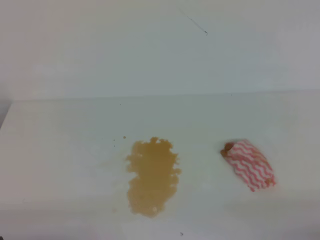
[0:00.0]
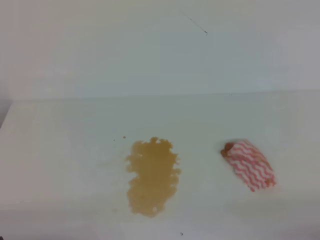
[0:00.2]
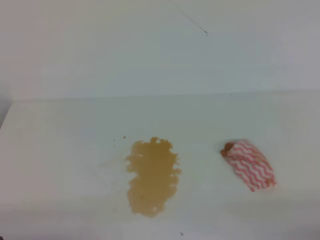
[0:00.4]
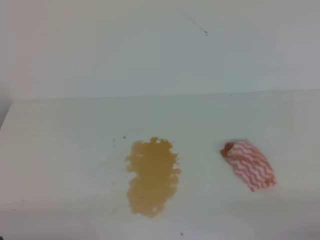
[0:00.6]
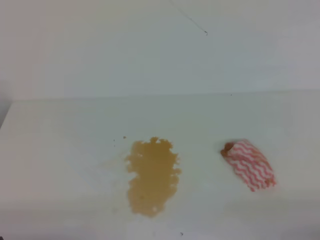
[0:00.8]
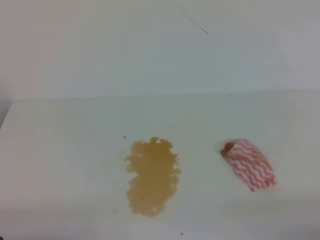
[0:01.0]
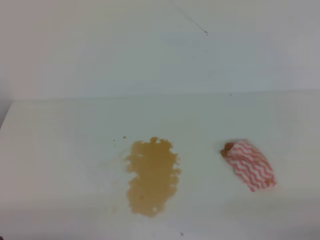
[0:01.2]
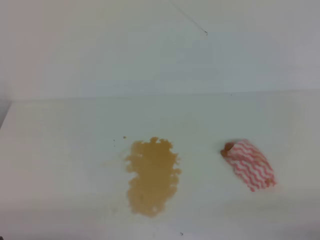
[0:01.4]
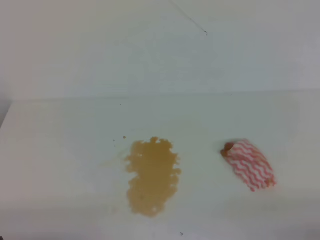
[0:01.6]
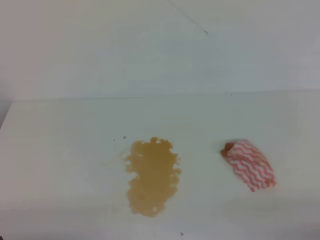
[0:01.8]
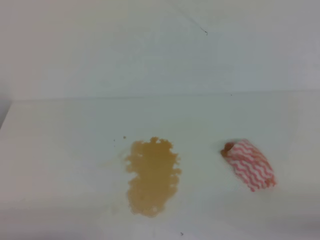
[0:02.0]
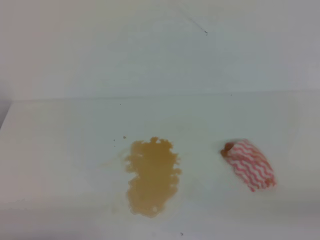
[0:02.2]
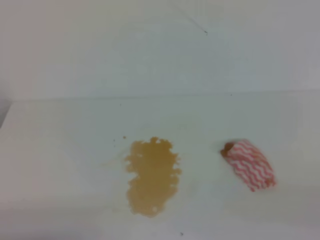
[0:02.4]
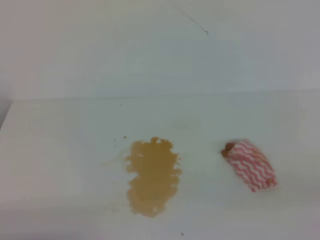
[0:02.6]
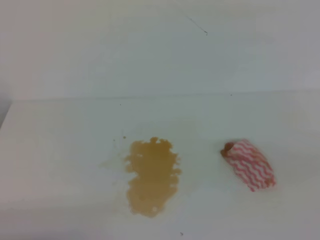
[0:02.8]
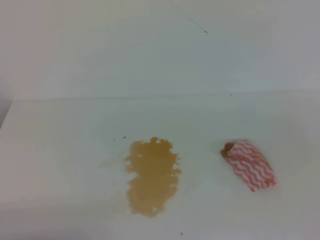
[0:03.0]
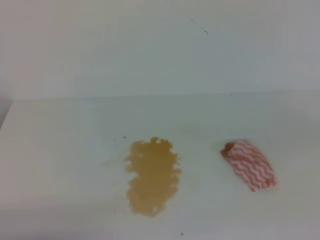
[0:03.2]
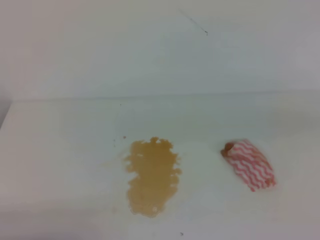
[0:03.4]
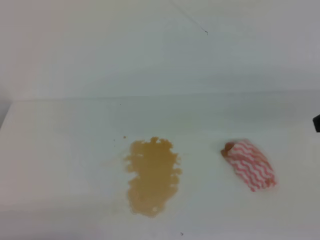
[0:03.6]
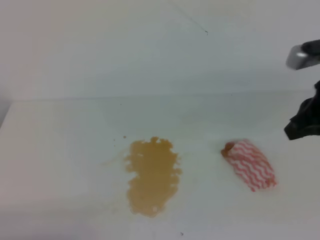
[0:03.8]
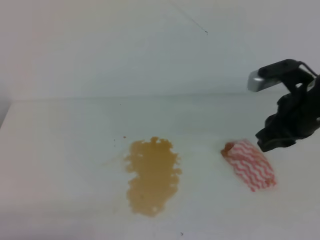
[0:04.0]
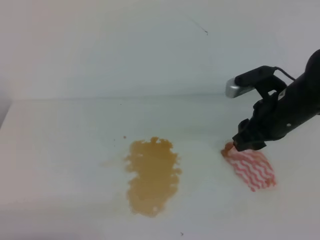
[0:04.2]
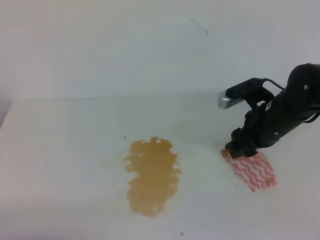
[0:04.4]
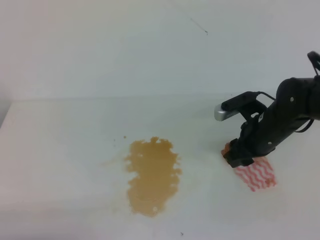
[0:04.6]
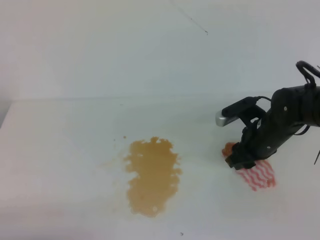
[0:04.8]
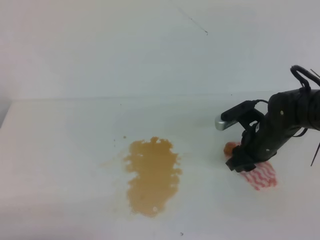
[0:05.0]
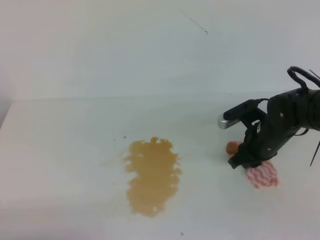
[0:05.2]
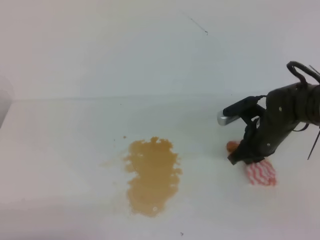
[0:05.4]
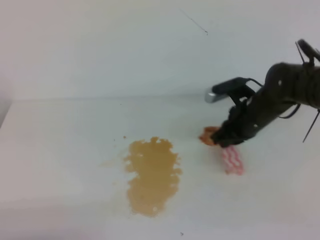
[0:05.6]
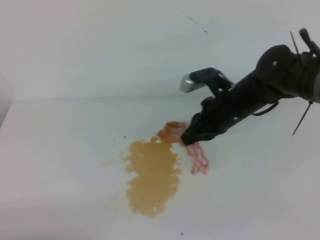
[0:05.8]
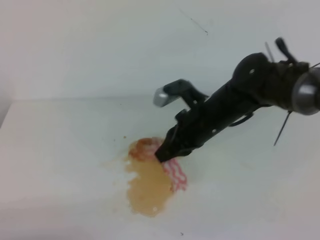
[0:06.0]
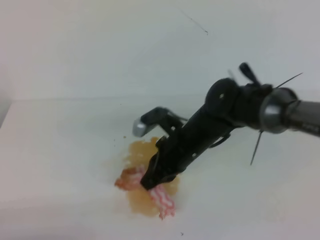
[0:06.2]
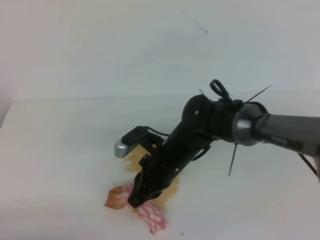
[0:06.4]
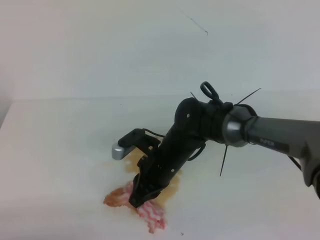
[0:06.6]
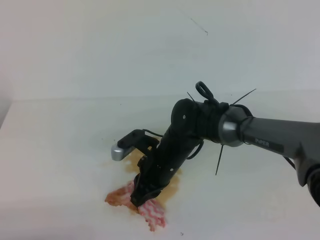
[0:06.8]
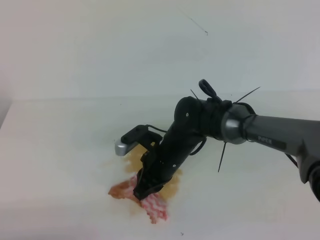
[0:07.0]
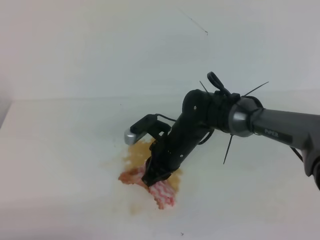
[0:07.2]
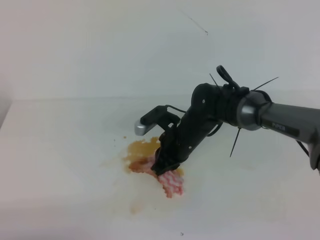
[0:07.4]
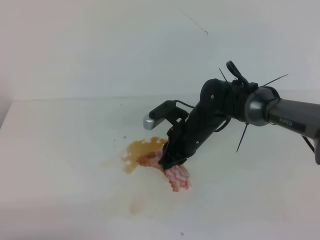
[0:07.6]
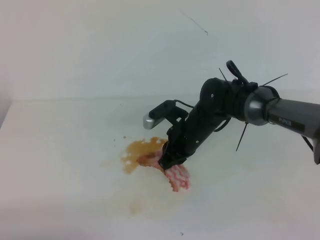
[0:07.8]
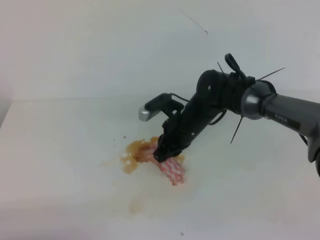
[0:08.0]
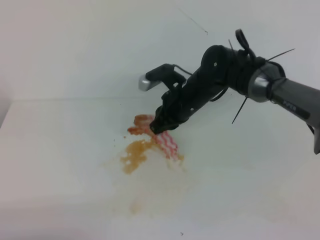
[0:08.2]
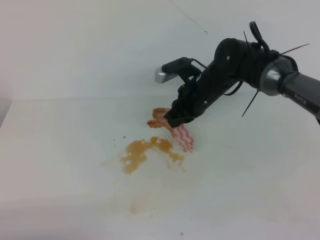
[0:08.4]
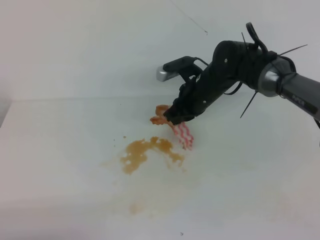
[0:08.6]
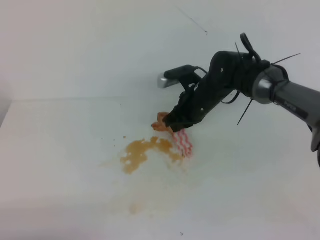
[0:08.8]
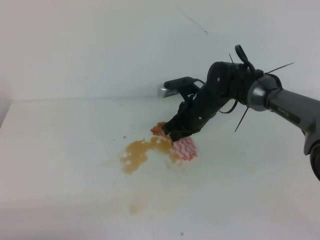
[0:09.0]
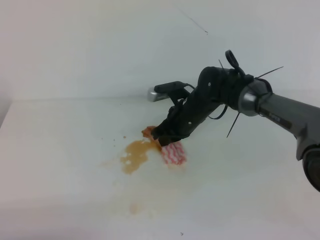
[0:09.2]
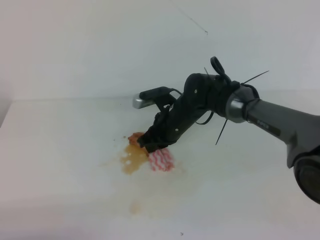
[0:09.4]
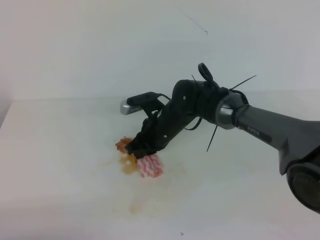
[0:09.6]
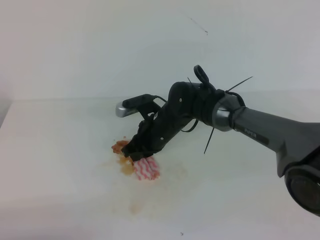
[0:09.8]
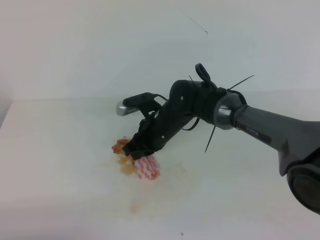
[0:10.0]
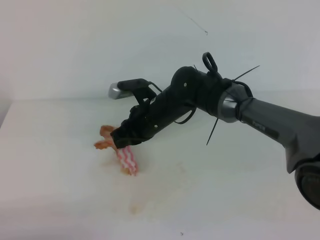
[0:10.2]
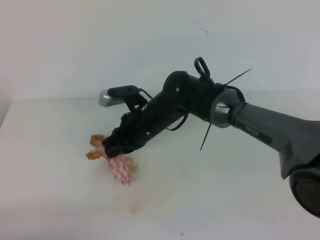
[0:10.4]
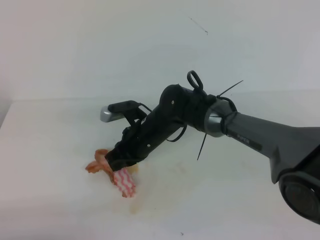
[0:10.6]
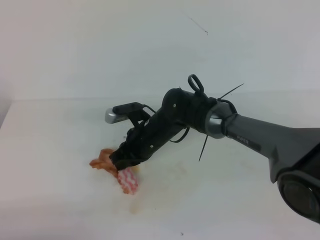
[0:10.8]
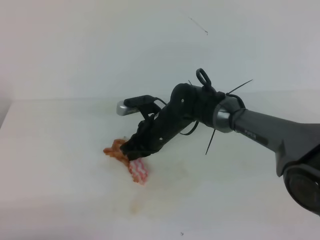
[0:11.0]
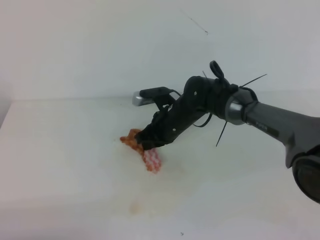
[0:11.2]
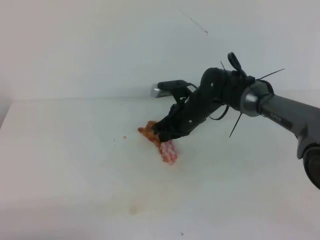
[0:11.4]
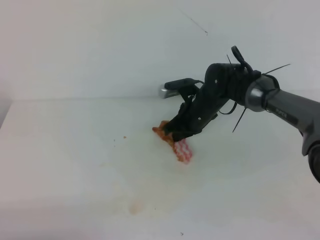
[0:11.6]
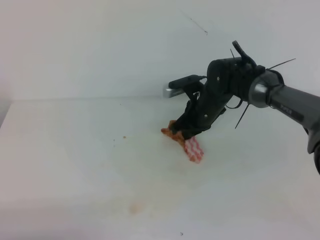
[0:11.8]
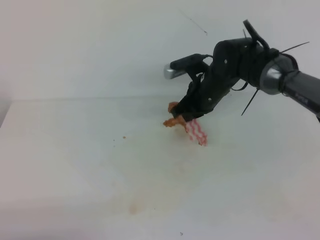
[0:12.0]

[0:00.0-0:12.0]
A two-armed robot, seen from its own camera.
0:00.0 to 0:01.6: Both grippers stay about where they are.
0:03.0 to 0:04.4: The right gripper is displaced forward, downward and to the left by about 35 cm, and opens its fingers.
0:04.4 to 0:06.0: The right gripper heads to the left, covering some 10 cm, and closes up.
0:06.0 to 0:07.6: The right gripper heads downward, covering approximately 10 cm.
0:07.6 to 0:09.0: The right gripper shifts about 5 cm forward.
0:09.0 to 0:10.4: The right gripper moves to the left and backward, about 10 cm.
0:10.4 to 0:12.0: The right gripper goes approximately 15 cm to the right and forward.

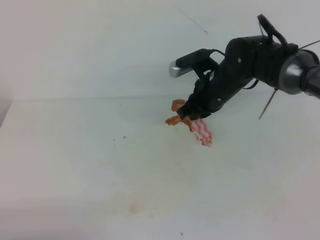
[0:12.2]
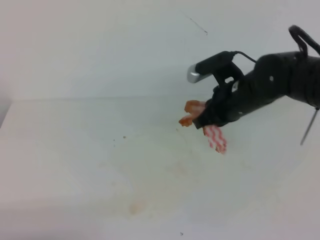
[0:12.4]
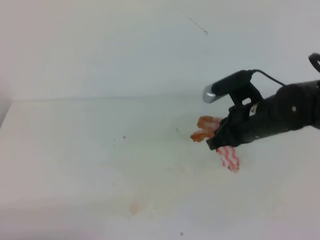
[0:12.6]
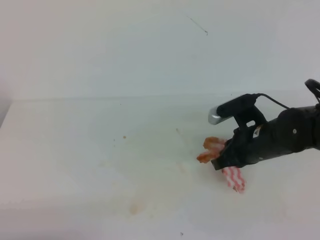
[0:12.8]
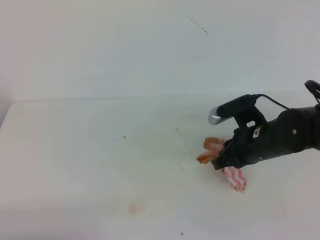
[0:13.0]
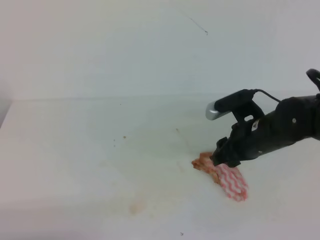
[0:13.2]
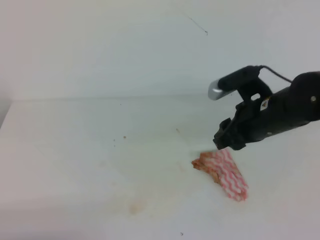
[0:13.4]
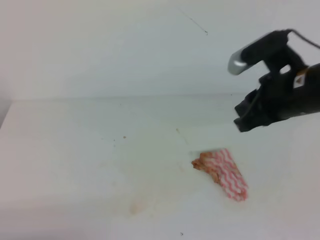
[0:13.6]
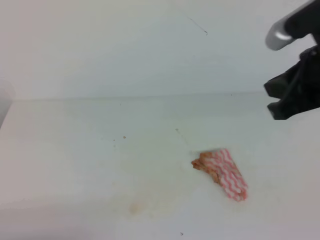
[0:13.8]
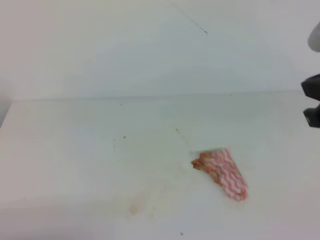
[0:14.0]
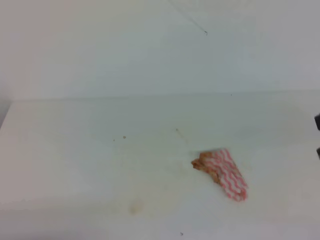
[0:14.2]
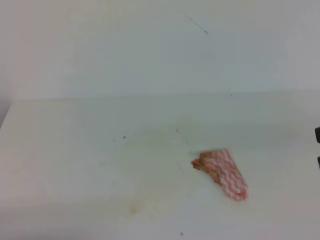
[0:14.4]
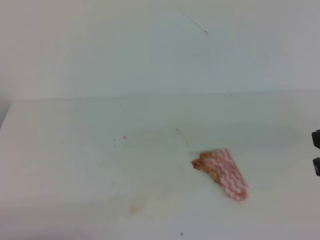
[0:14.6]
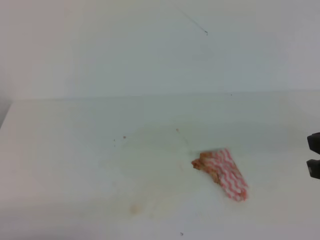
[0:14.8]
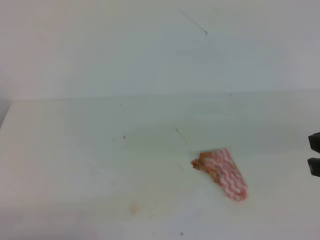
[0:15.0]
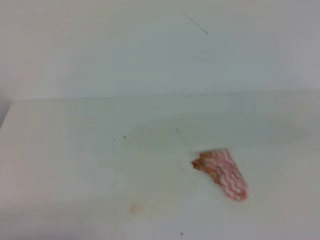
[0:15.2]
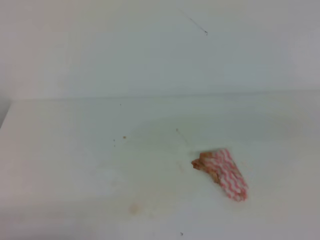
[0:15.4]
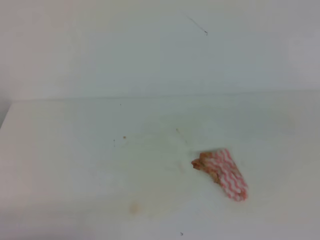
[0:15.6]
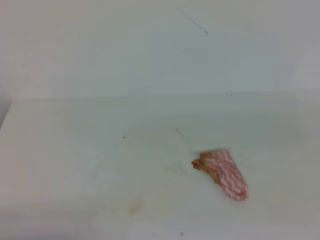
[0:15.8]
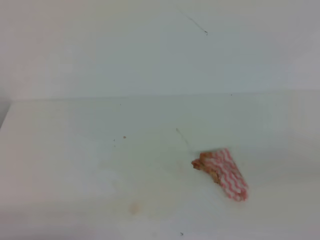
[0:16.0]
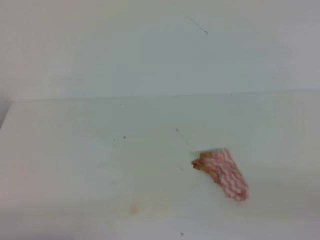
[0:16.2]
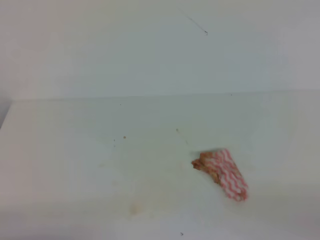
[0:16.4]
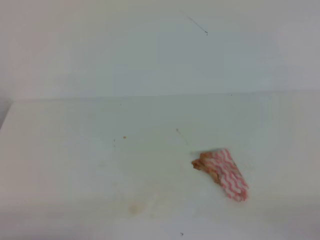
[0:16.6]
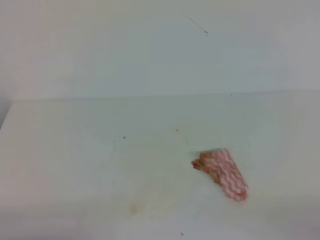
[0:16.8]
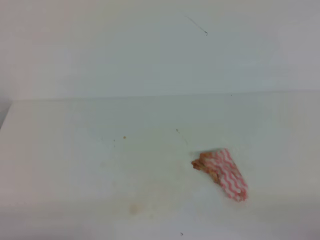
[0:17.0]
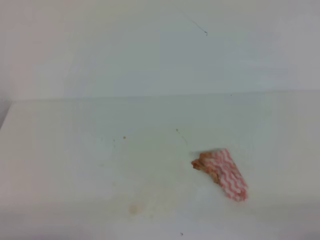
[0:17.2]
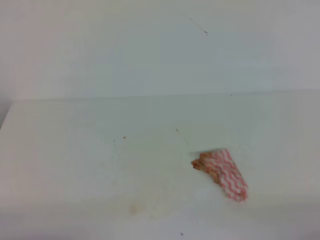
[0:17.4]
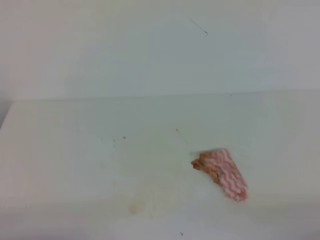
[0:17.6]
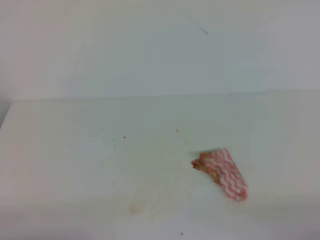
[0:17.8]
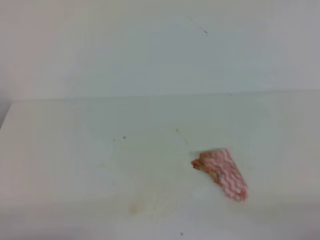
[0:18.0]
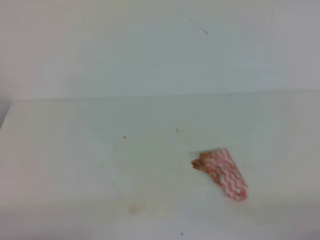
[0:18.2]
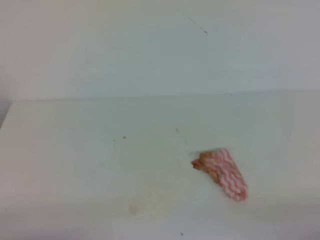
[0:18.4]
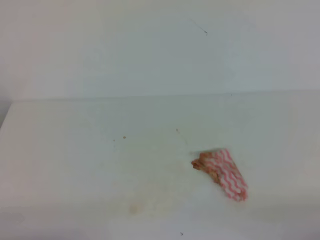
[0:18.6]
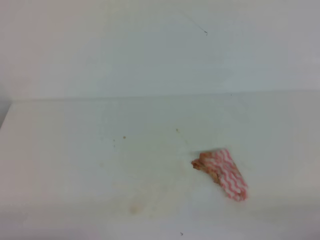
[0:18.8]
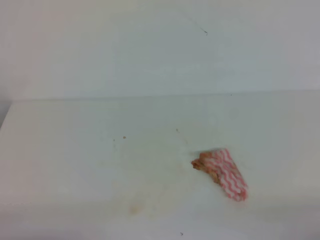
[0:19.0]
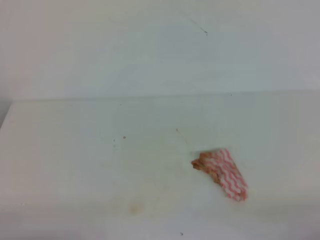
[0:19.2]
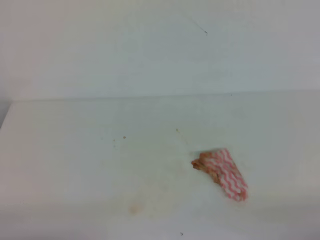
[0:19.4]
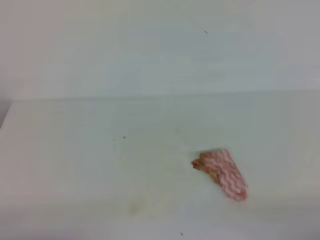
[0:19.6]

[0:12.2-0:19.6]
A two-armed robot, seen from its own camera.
0:12.2 to 0:13.6: The right gripper goes some 20 cm backward, upward and to the right, and opens and closes again.
0:13.6 to 0:15.2: The right gripper travels to the right and backward by some 15 cm, and closes its fingers.
0:18.2 to 0:19.6: The two grippers keep their place.
